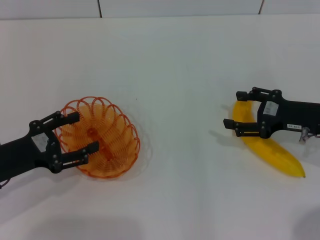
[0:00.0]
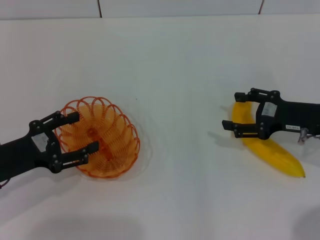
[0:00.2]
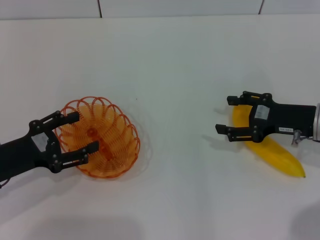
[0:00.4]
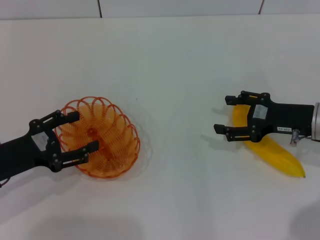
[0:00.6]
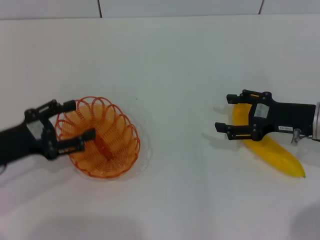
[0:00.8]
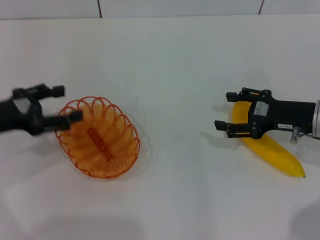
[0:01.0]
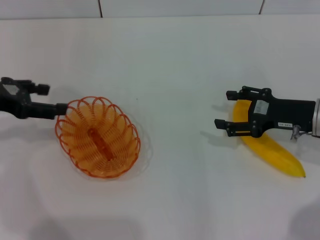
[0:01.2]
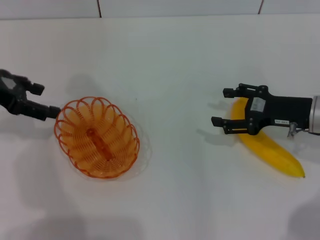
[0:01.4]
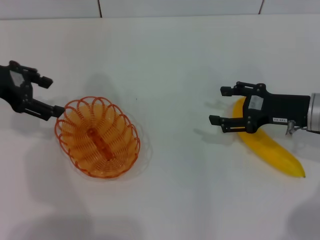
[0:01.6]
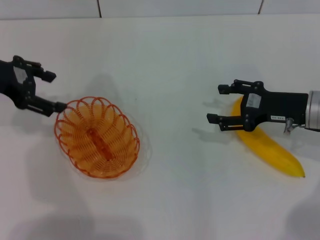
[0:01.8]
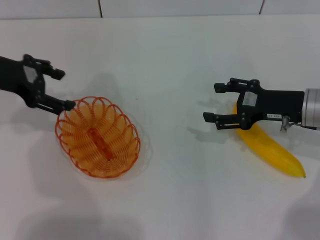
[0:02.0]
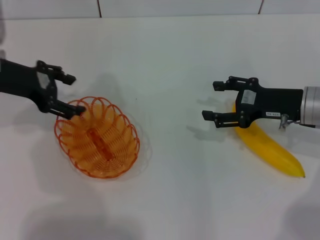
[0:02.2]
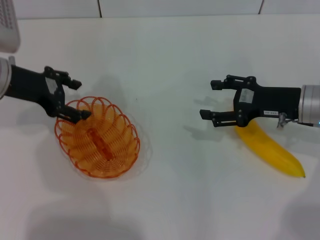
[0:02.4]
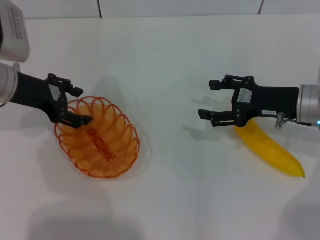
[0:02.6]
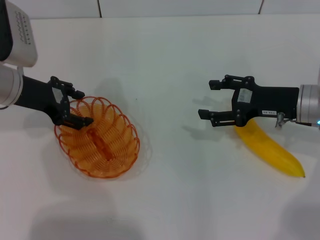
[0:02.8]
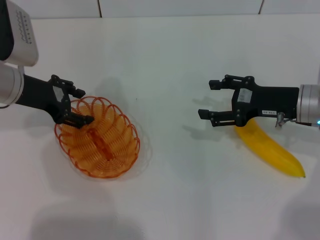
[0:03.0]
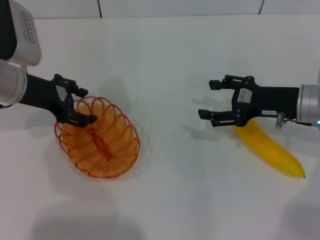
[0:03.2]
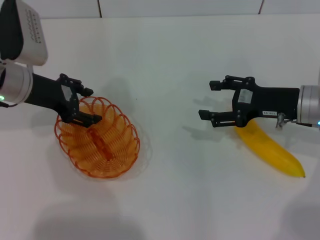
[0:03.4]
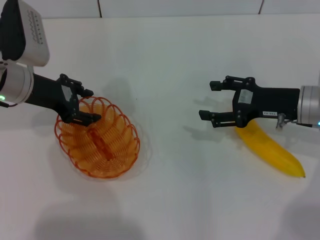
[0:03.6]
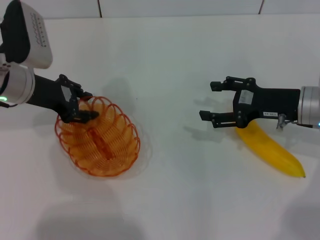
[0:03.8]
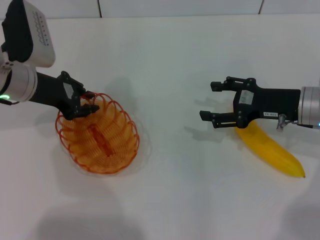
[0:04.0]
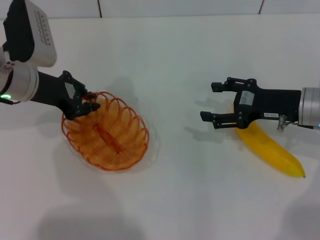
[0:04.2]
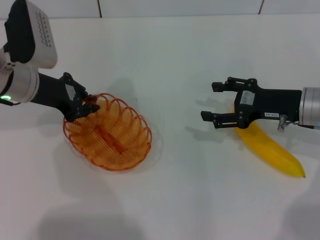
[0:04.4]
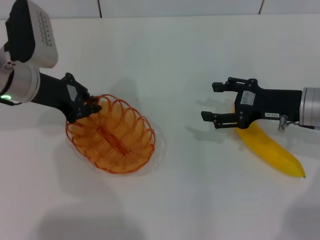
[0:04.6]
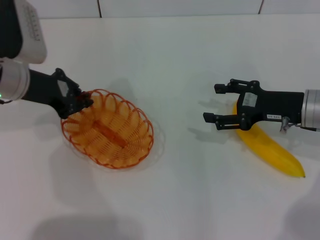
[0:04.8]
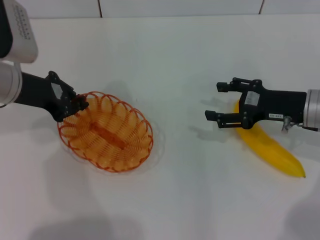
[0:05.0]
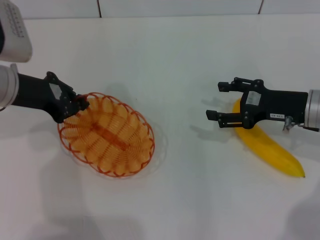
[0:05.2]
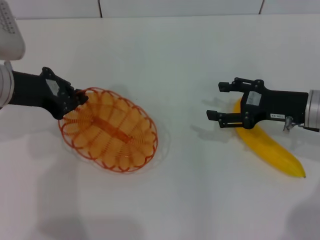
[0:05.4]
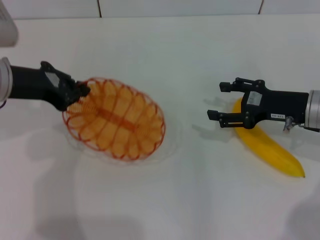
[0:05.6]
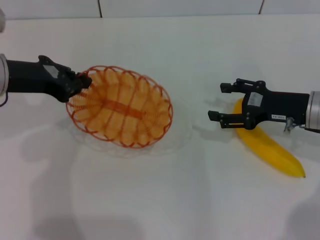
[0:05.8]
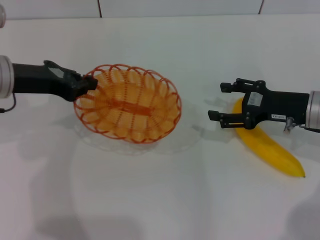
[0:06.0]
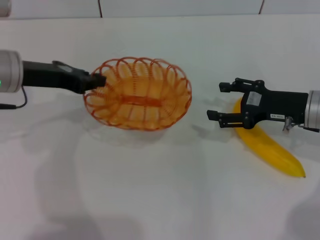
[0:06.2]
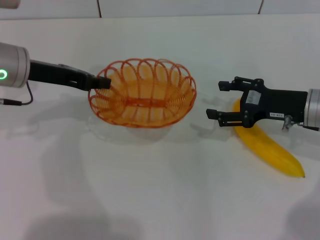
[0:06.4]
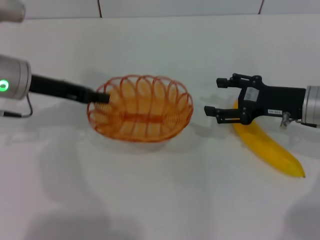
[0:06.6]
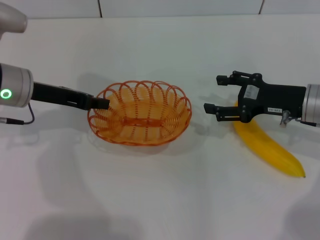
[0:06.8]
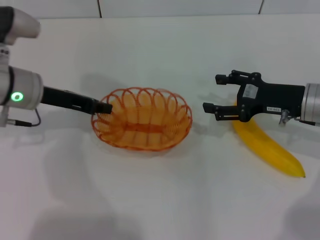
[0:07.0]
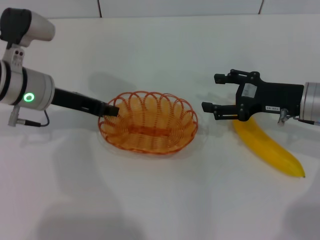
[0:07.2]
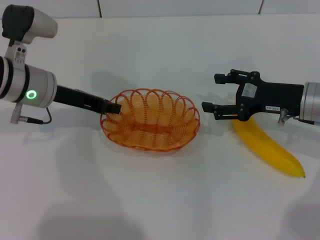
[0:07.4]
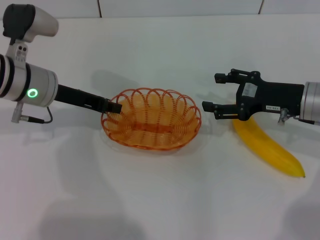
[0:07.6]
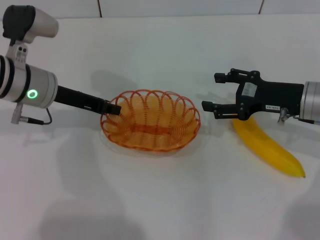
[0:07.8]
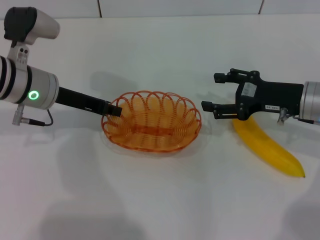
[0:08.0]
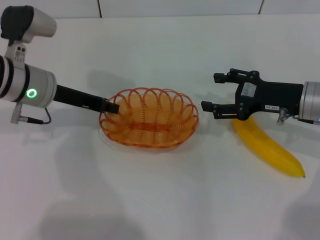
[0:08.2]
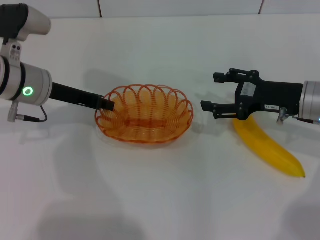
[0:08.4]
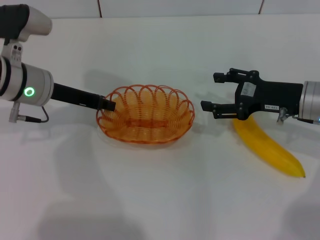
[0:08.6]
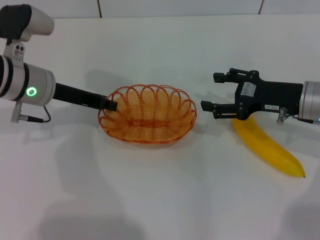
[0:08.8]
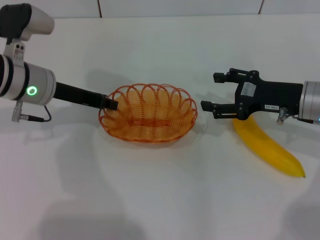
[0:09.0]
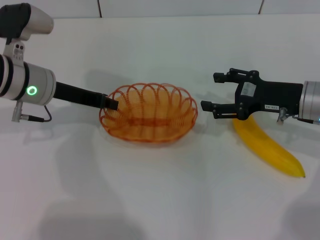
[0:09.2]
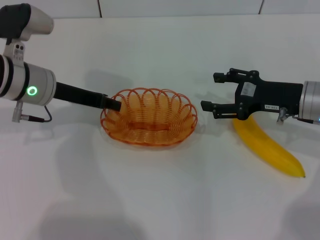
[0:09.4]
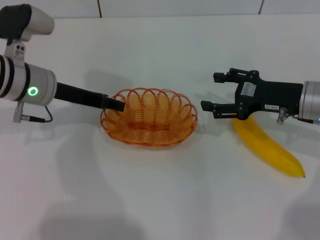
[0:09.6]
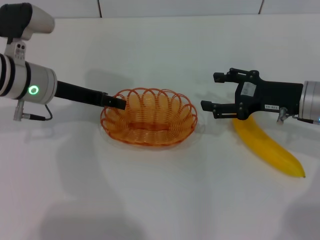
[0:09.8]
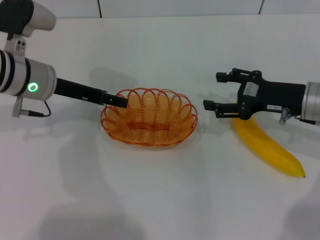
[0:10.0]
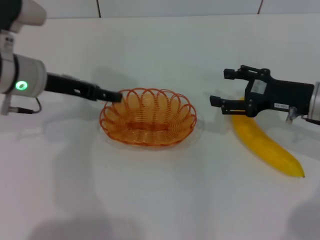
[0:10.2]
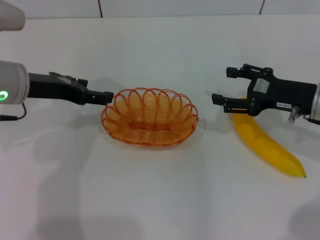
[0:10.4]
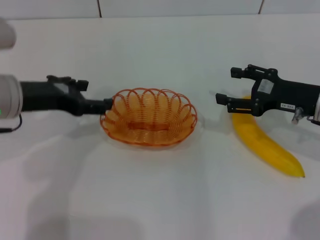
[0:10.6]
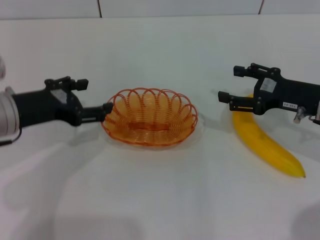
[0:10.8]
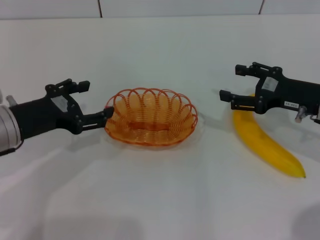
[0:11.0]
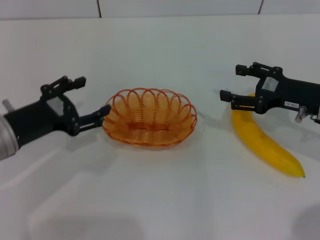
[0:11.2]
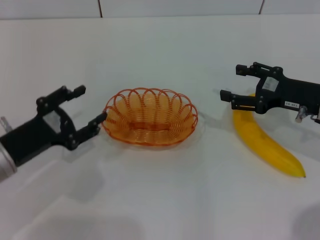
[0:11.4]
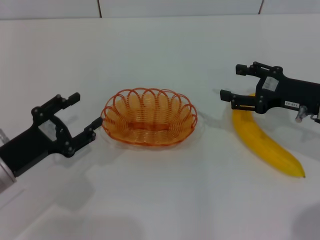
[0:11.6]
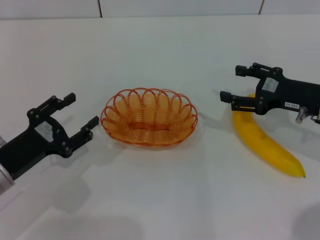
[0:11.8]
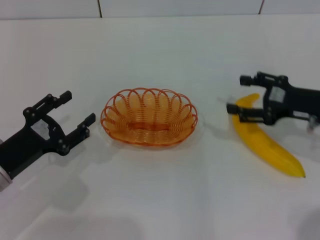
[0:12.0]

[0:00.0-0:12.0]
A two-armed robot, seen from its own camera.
Step, 0:00.0 to 0:05.6: Pick up the basket with the left gripper.
Step, 0:05.8 to 0:10.4: Place the basket in the center of view with the left gripper.
0:00.0 to 0:01.6: The left gripper travels upward and forward by approximately 20 cm.
0:01.6 to 0:03.0: The left gripper goes about 5 cm downward.
0:03.0 to 0:04.4: The left gripper closes its fingers.
0:04.4 to 0:06.0: The left gripper shifts by some 5 cm.
0:06.0 to 0:07.6: The left gripper changes place by about 5 cm.
0:07.6 to 0:09.0: Both grippers stay put.
0:09.0 to 0:10.4: The left gripper changes place by about 5 cm, and opens its fingers.
0:10.4 to 0:12.0: The left gripper goes roughly 15 cm downward and backward.

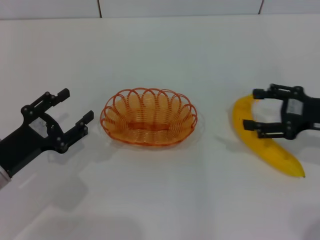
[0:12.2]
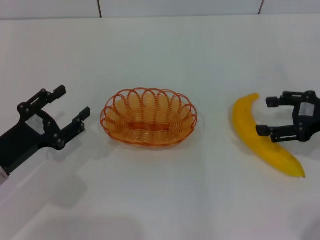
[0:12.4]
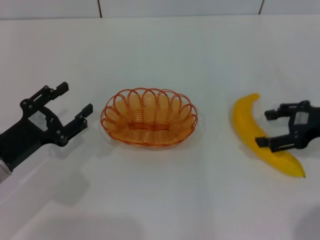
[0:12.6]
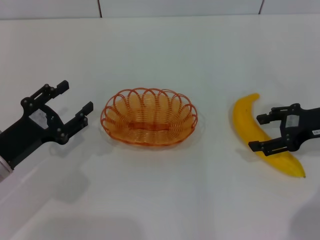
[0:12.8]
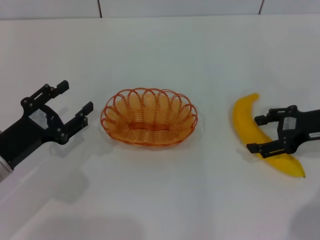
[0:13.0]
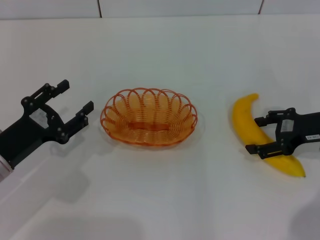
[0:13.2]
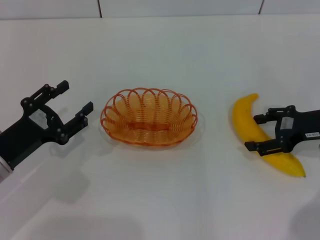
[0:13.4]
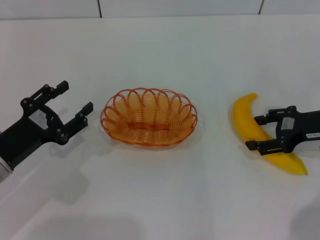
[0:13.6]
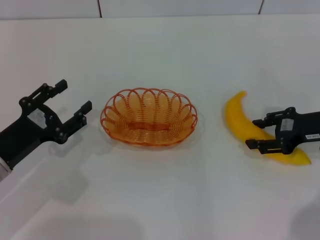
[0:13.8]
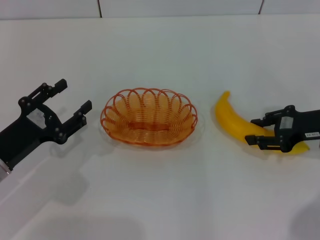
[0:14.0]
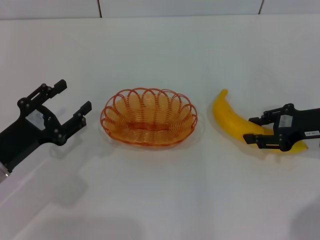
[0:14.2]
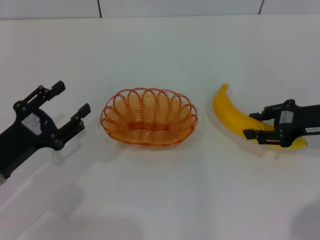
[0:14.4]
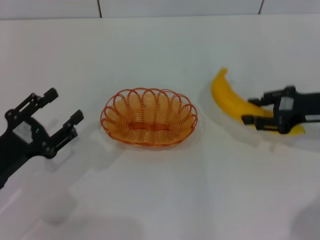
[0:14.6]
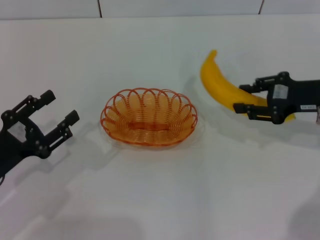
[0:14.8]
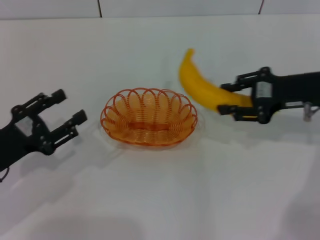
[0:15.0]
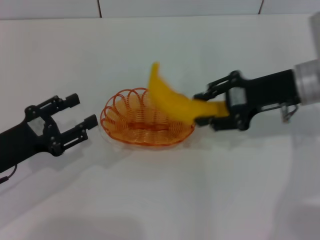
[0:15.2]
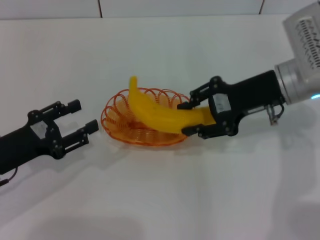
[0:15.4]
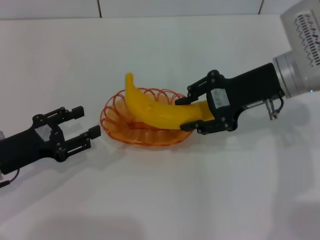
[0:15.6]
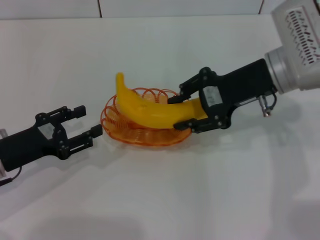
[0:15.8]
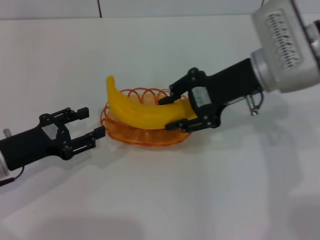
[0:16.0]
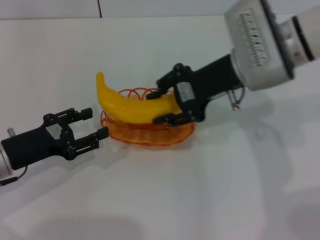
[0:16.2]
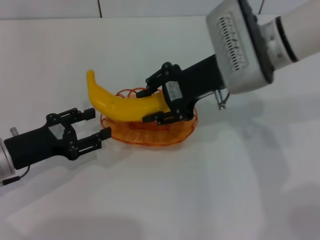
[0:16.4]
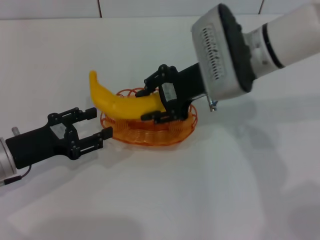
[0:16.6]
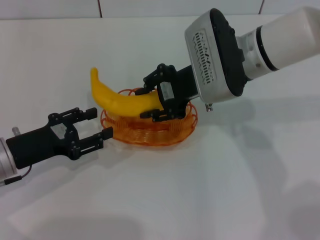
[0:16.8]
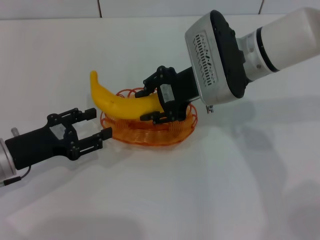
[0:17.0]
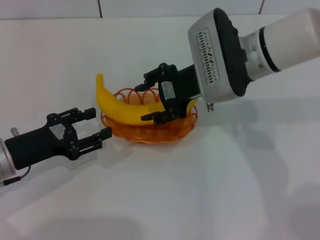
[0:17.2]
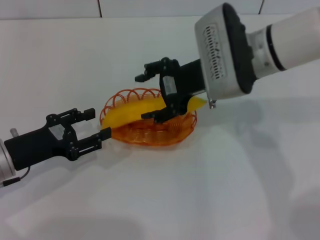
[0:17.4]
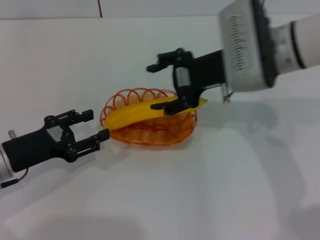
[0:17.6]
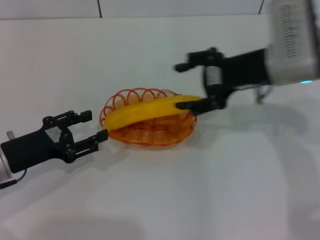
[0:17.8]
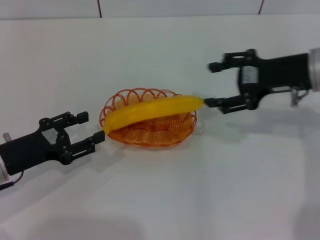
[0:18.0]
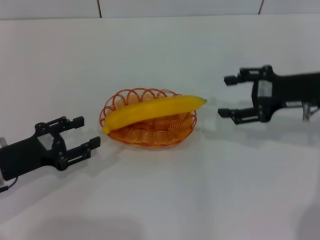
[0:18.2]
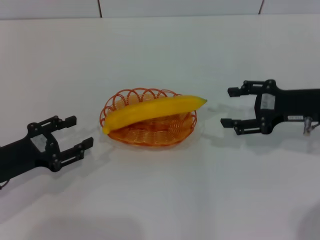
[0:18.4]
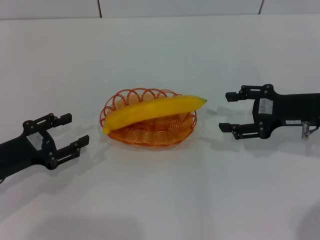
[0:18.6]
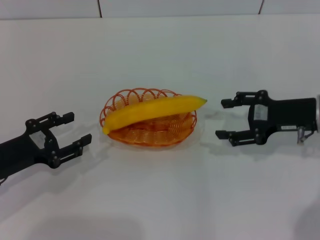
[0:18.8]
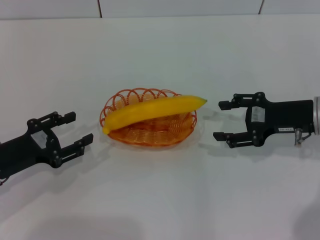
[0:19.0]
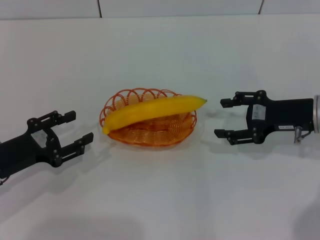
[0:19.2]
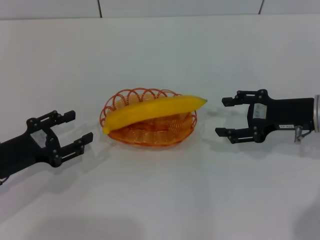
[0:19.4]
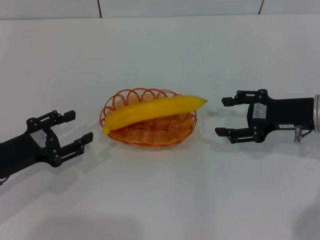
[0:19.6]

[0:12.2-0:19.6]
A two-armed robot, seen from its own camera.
Step, 0:12.2 to 0:14.4: Pick up the banana with the right gripper.
Step, 0:14.6 to 0:17.6: Place the banana into the basket with the right gripper.
0:13.6 to 0:15.2: The right gripper heads to the left and upward, covering roughly 10 cm, and closes up.
0:15.2 to 0:16.6: The right gripper heads to the left, covering some 10 cm.
0:16.6 to 0:18.2: The right gripper shifts roughly 15 cm to the right, and opens up.
0:18.2 to 0:19.6: The grippers stay close to where they were, moving slightly.

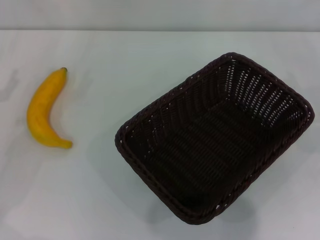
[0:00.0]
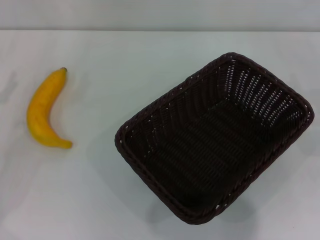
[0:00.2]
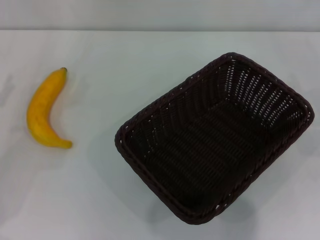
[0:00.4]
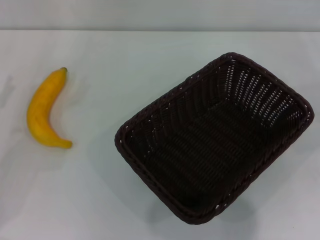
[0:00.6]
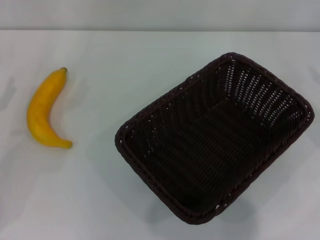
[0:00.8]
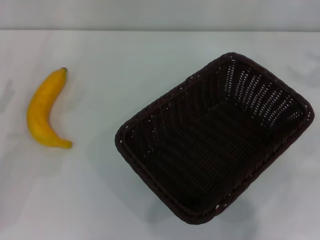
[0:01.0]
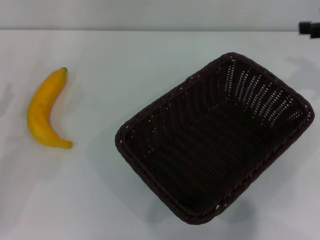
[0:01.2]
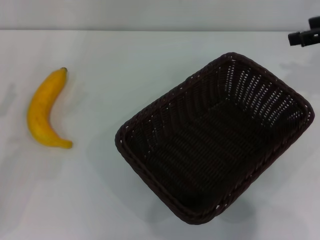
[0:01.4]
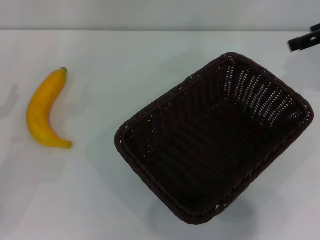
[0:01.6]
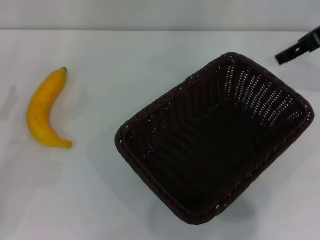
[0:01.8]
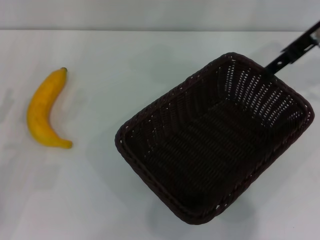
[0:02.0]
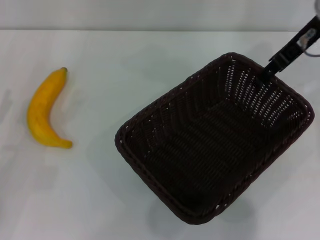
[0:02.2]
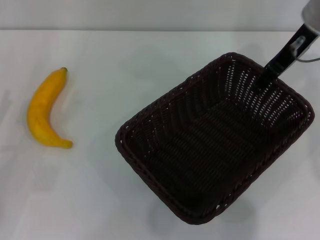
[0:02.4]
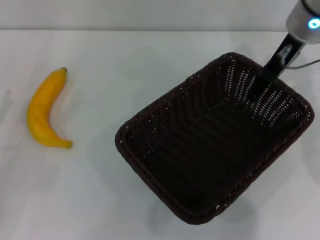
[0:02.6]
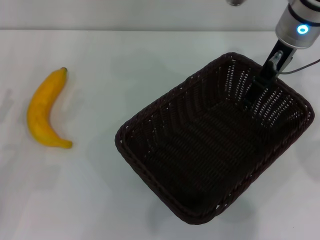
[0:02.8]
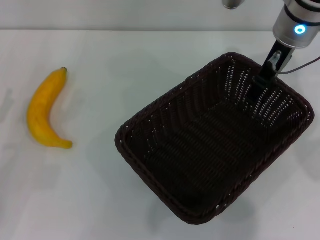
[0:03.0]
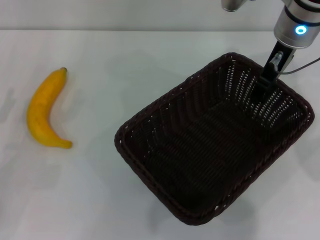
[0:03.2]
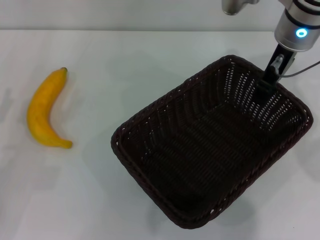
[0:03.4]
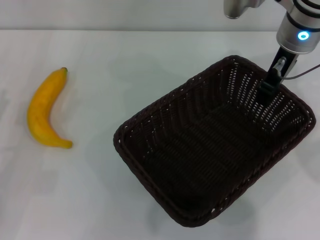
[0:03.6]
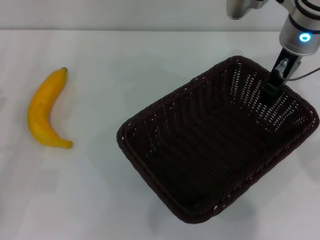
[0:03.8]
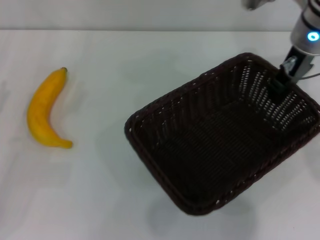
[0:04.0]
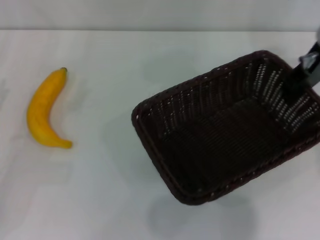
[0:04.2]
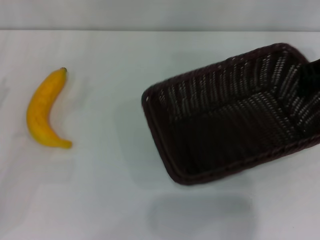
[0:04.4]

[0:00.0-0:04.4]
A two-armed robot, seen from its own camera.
Step, 0:00.0 to 0:04.2: Pick up the dark basket with the right gripper.
0:00.0 to 0:01.4: The right gripper heads upward, to the left and forward, covering roughly 20 cm.
0:01.4 to 0:03.0: The right gripper is displaced to the left by about 15 cm.
0:03.0 to 0:04.4: The right gripper heads to the right, covering roughly 10 cm, and closes.
